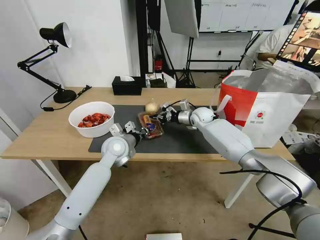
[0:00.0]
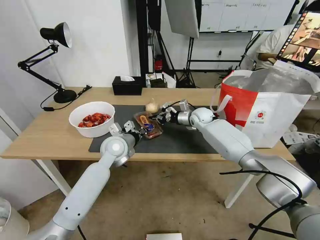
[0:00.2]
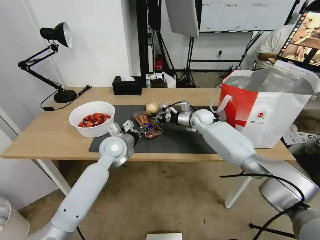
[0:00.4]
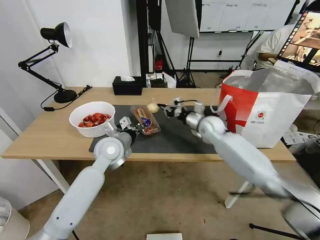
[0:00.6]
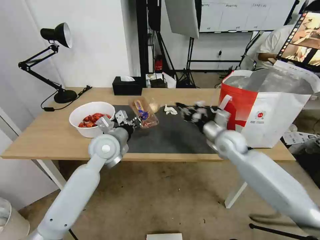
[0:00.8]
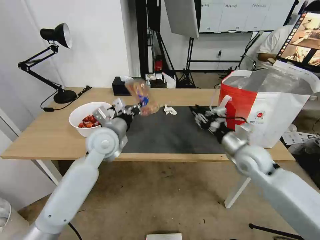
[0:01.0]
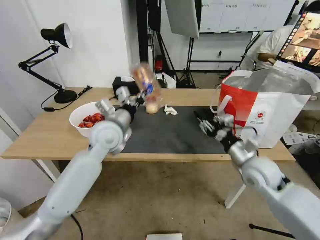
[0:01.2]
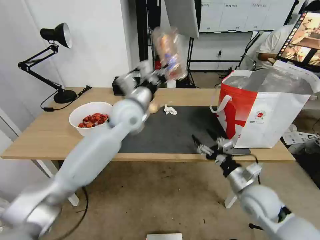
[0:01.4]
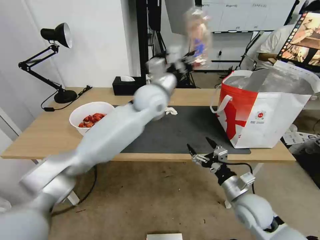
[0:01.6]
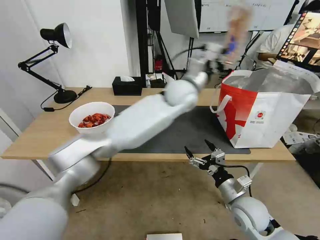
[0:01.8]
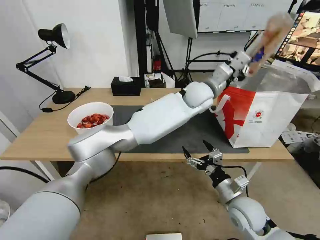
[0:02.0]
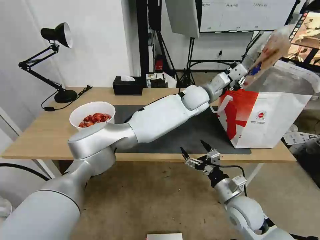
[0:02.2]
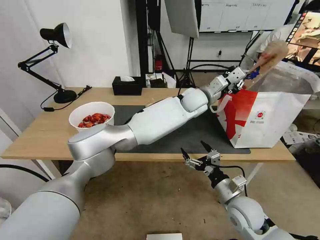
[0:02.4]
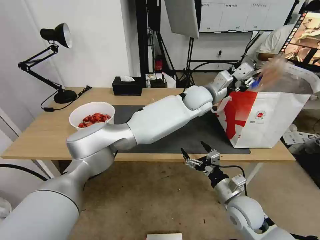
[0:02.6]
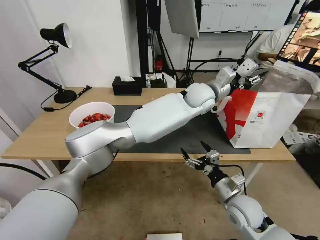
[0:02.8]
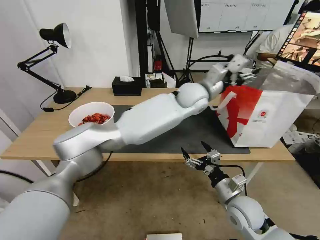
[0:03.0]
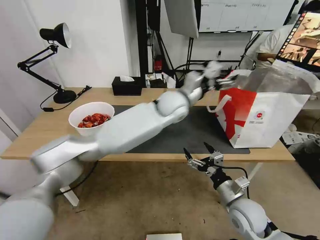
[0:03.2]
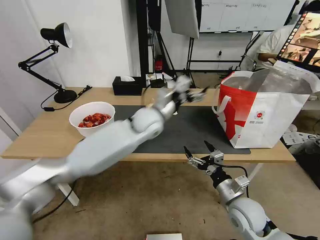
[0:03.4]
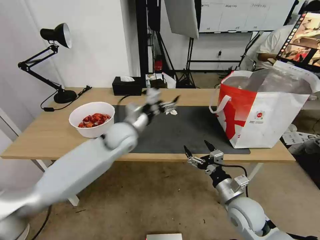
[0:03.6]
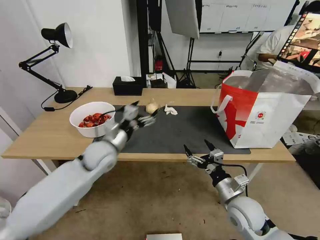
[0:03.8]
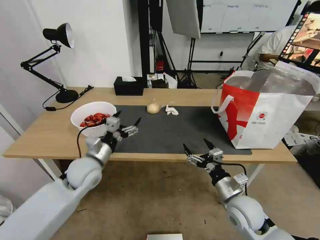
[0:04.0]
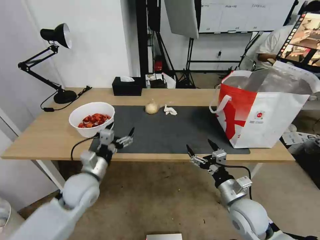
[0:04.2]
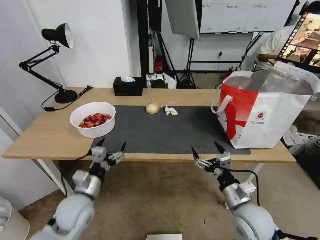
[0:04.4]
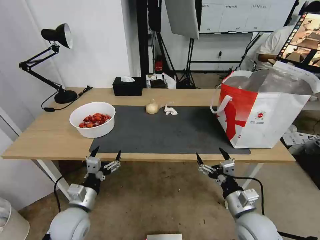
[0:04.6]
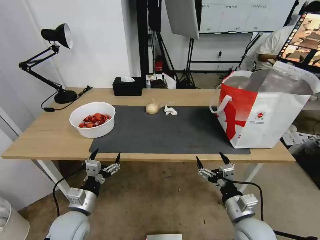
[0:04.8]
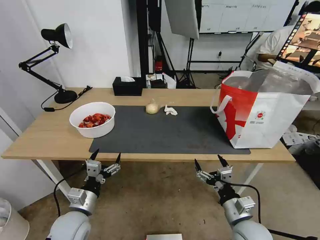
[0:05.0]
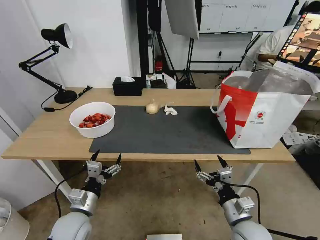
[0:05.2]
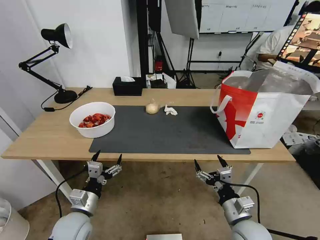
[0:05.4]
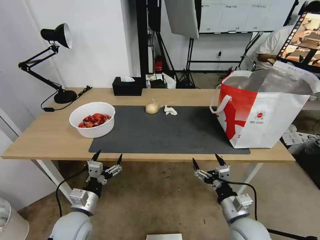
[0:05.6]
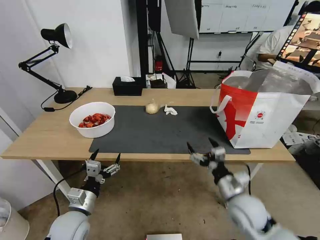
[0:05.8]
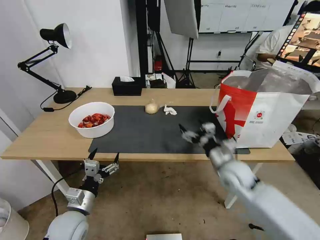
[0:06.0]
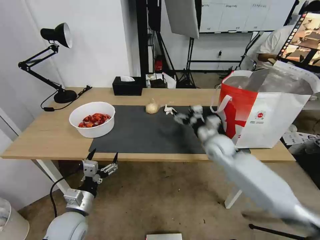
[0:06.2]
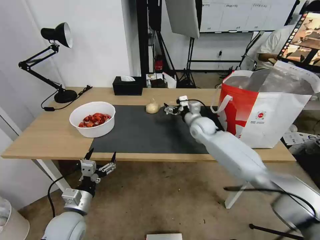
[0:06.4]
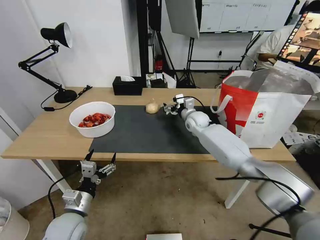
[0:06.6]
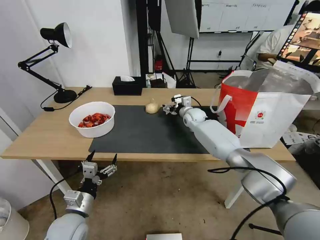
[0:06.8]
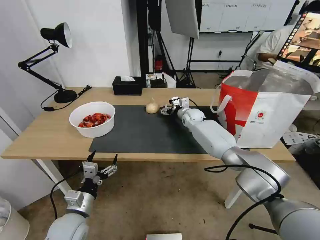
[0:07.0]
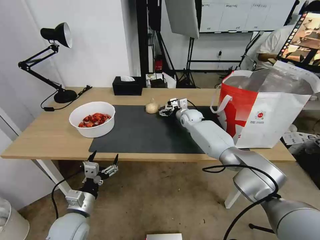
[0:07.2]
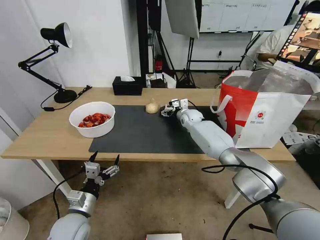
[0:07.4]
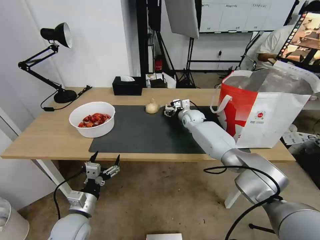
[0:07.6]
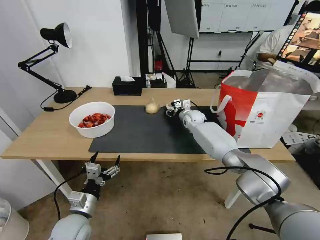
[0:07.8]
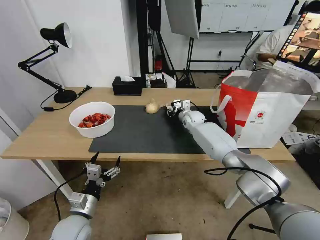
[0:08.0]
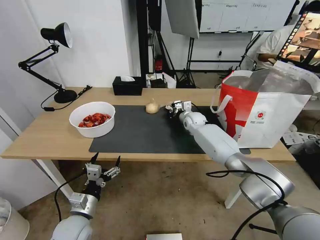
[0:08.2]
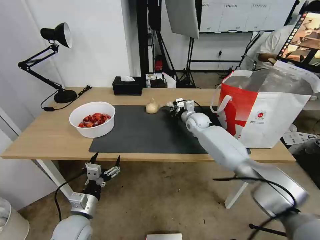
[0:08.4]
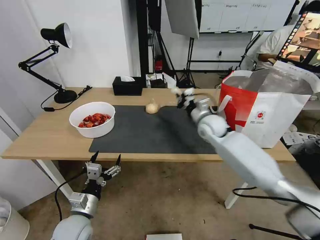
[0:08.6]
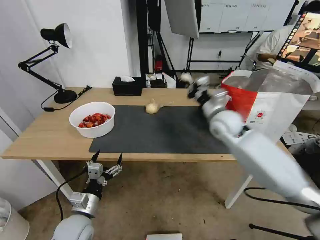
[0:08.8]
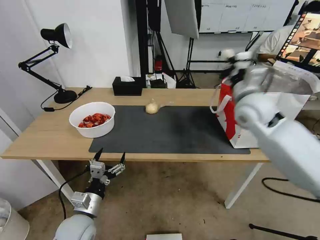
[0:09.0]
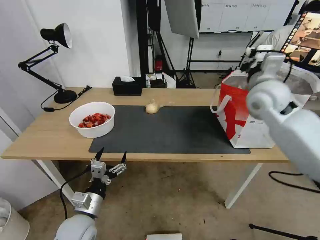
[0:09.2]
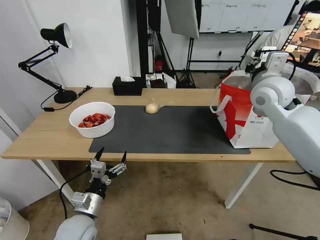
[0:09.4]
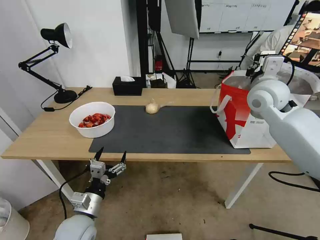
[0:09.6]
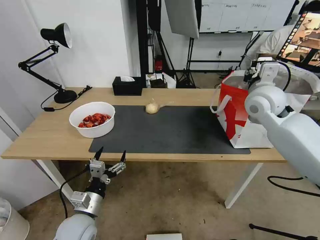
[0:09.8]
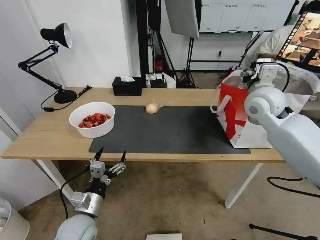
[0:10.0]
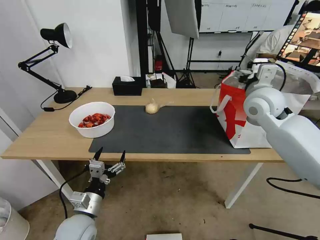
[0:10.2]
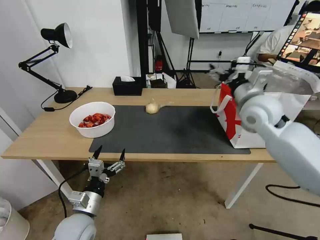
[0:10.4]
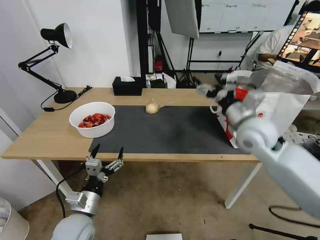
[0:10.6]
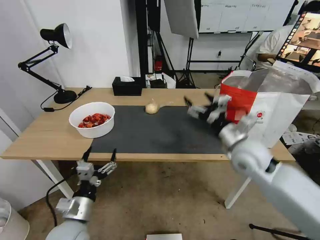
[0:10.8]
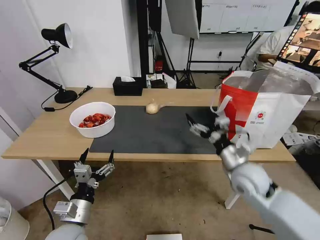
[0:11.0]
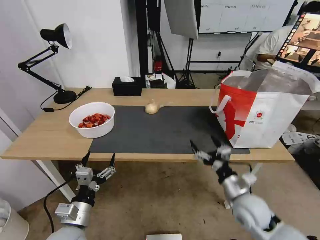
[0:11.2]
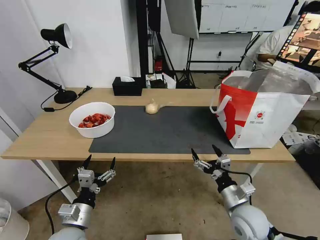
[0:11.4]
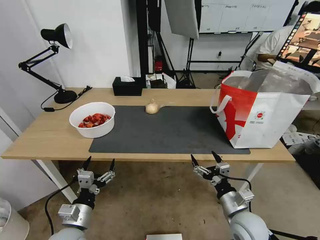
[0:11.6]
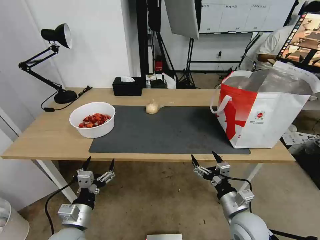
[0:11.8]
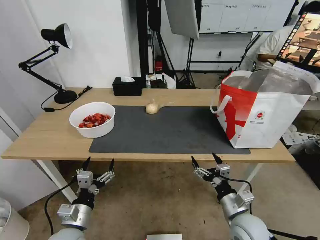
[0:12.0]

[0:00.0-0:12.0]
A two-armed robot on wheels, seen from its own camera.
Task of the whole recording: Pick up the trash from the table and place it into the takeout bag.
0:00.0 to 0:01.6: The left gripper travels upward and to the right by approximately 20 cm; the right gripper moves backward, some 35 cm, and opens up.
0:01.6 to 0:03.0: The left gripper heads to the right, covering some 15 cm, and opens its fingers.
0:03.0 to 0:04.4: The left gripper moves to the left, backward and downward, about 50 cm.
0:04.4 to 0:06.0: The right gripper travels forward by approximately 10 cm.
0:06.0 to 0:07.6: The right gripper moves forward, roughly 30 cm.
0:07.6 to 0:09.0: The right gripper travels backward, upward and to the right by about 30 cm, and closes its fingers.
0:09.0 to 0:10.4: The right gripper opens up.
0:10.4 to 0:12.0: The right gripper travels downward and backward by roughly 35 cm.

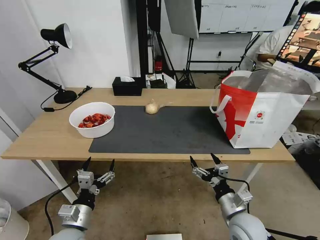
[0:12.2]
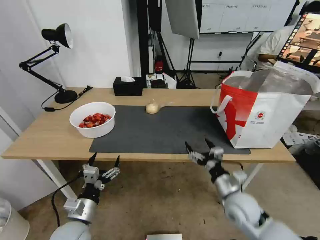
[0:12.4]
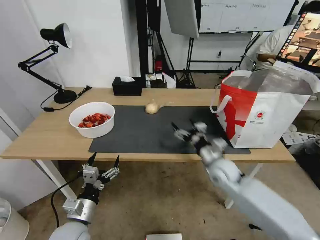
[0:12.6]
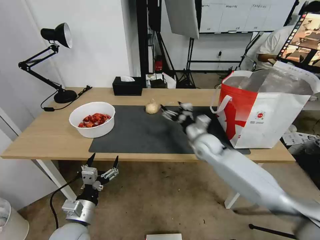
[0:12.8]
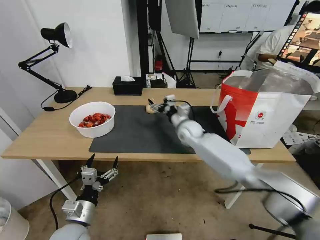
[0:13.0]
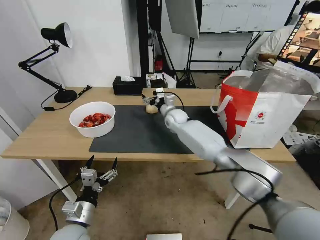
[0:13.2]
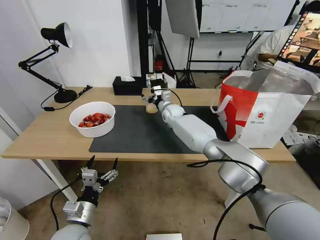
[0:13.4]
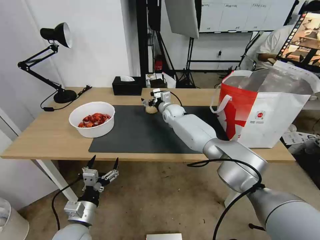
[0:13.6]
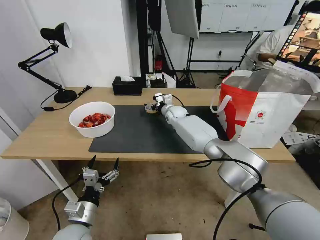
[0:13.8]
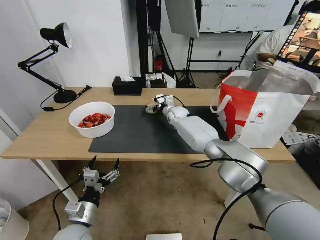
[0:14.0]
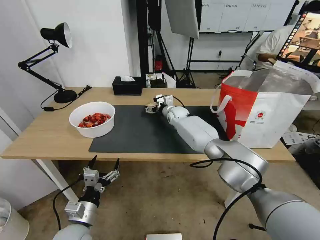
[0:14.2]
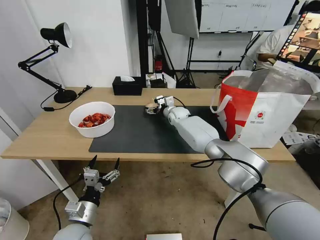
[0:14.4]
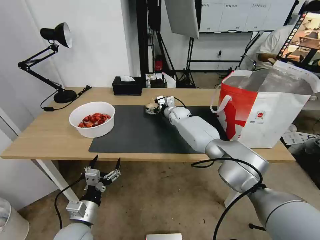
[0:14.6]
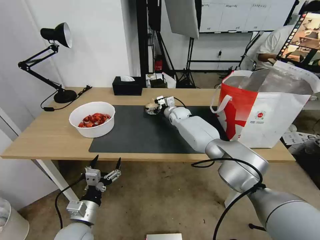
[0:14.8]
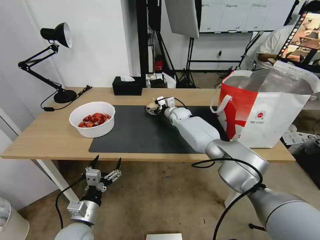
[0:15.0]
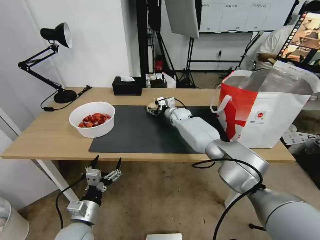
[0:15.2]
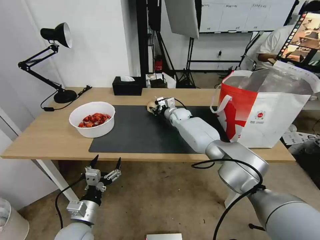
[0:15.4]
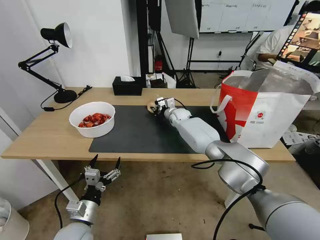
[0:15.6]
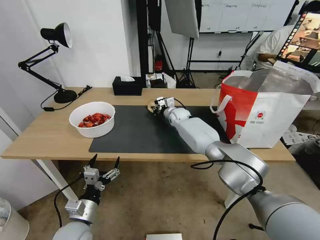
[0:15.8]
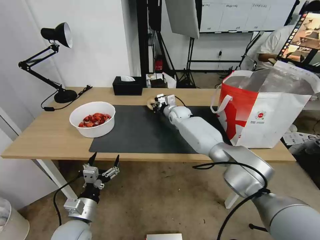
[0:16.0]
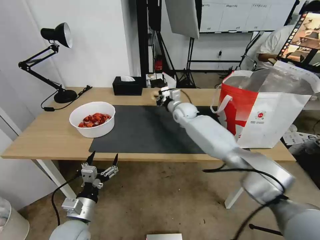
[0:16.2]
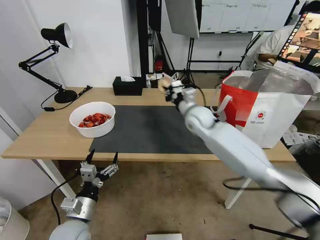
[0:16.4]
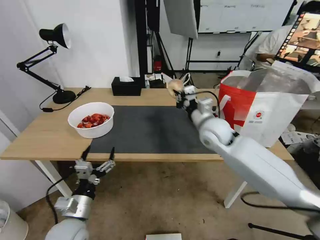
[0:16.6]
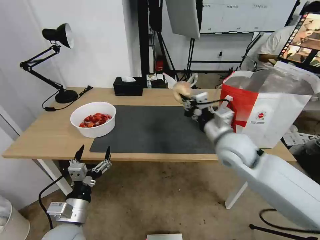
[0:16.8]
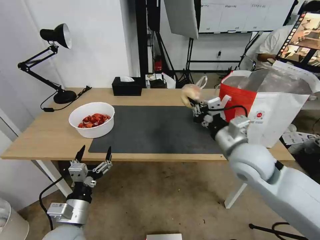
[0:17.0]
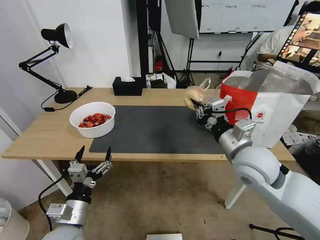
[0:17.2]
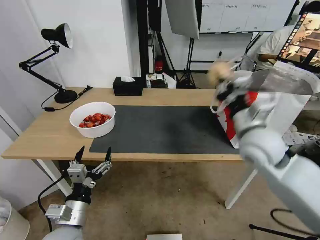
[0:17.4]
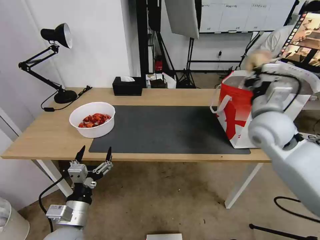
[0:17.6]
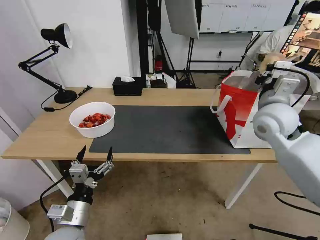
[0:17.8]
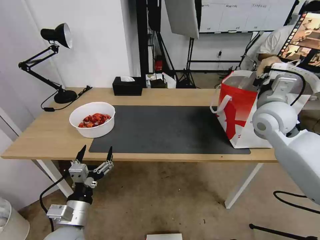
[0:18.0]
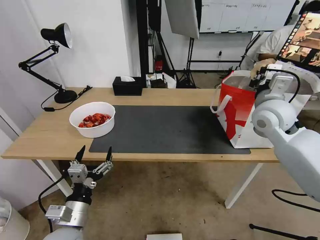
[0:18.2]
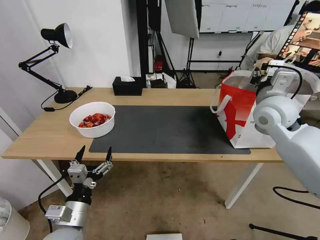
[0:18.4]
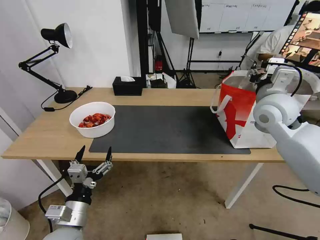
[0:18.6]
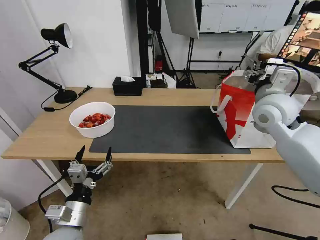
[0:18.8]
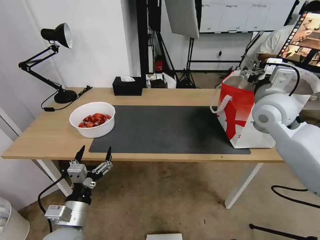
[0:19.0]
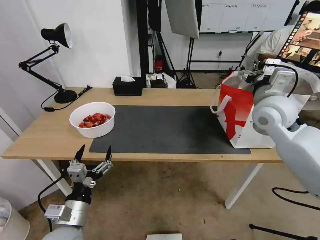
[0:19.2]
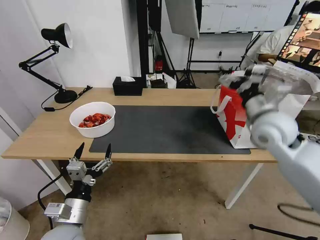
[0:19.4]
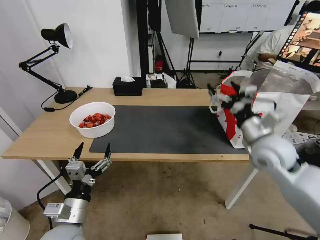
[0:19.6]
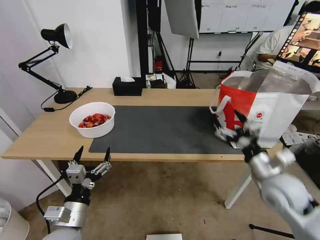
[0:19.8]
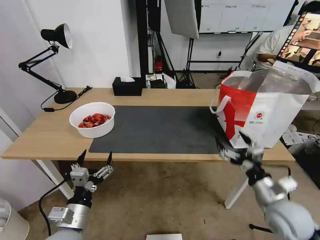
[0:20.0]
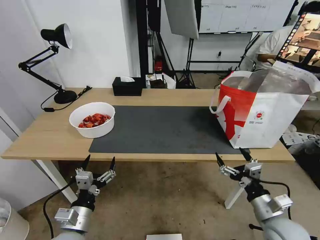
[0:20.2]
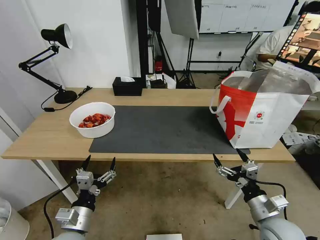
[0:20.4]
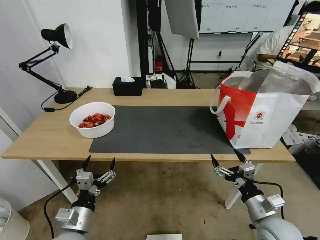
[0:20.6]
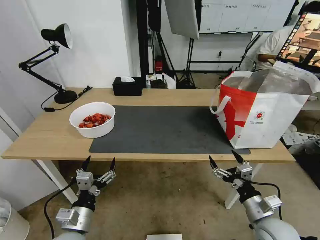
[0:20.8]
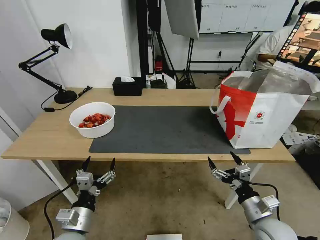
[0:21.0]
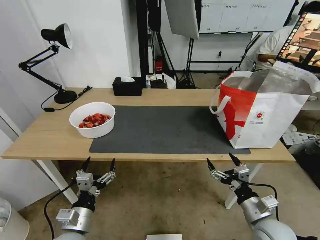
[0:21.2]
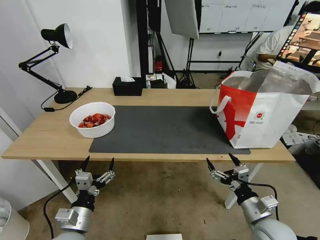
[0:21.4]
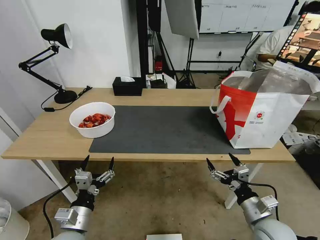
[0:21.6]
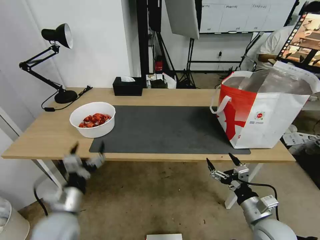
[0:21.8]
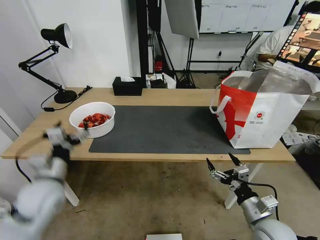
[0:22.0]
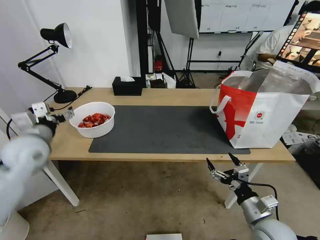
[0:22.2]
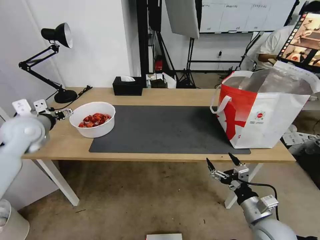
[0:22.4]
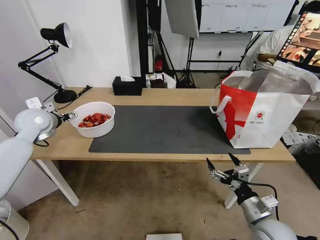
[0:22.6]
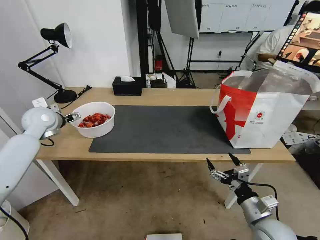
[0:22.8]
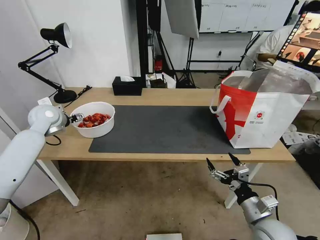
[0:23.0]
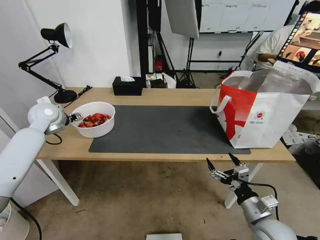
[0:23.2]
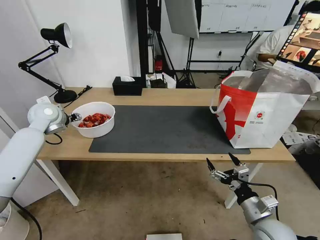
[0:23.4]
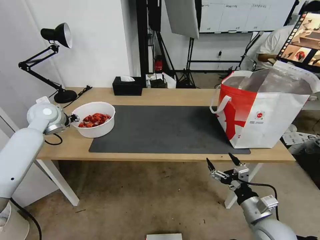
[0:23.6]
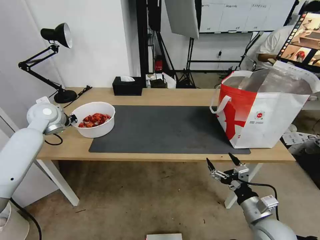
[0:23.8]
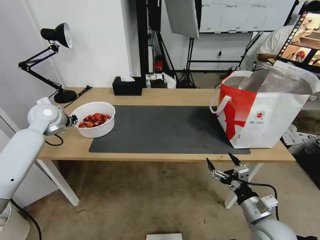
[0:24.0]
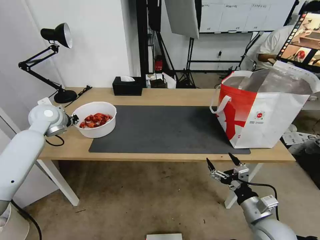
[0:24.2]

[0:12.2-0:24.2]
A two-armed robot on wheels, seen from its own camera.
Task of the whole recording: Pick up the trash from the table and place it into the takeout bag.
0:12.2 to 0:13.8: The right gripper goes approximately 40 cm forward.
0:13.8 to 0:15.2: The right gripper closes up.
0:15.2 to 0:16.6: The right gripper is displaced backward and upward by some 25 cm, and closes up.
0:16.6 to 0:18.2: The right gripper heads to the right and upward, covering approximately 15 cm.
0:18.2 to 0:19.8: The right gripper heads backward and downward, covering approximately 20 cm, and opens.
0:19.8 to 0:21.2: The right gripper goes about 15 cm downward and backward.
0:21.2 to 0:22.6: The left gripper travels forward, upward and to the left by about 40 cm.
0:22.6 to 0:24.2: The left gripper closes.
